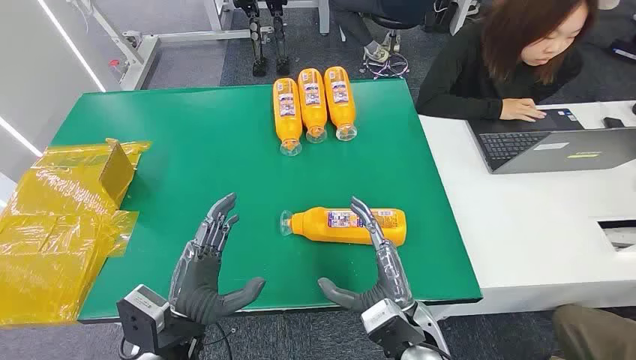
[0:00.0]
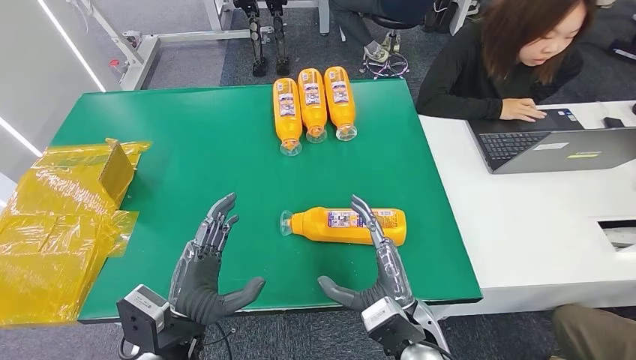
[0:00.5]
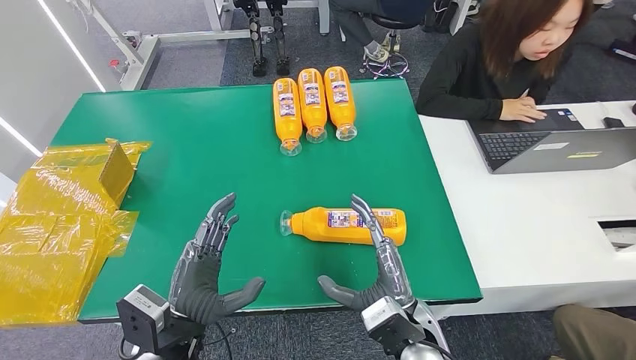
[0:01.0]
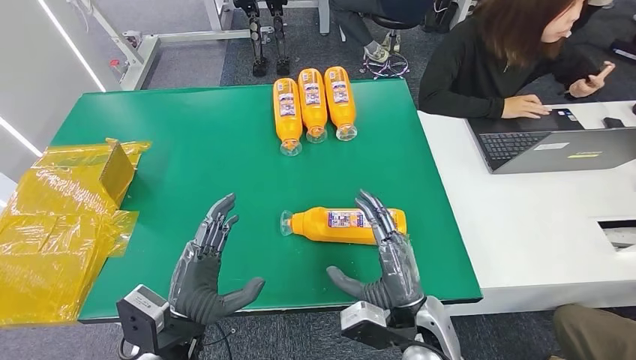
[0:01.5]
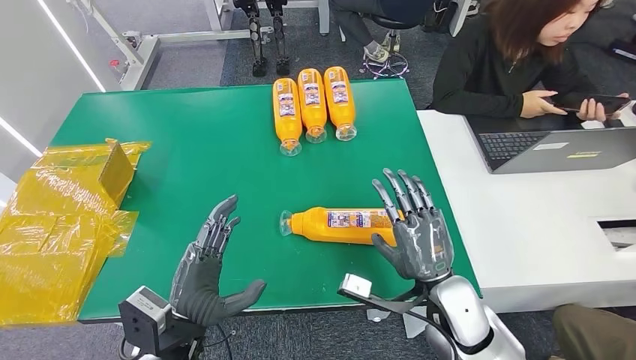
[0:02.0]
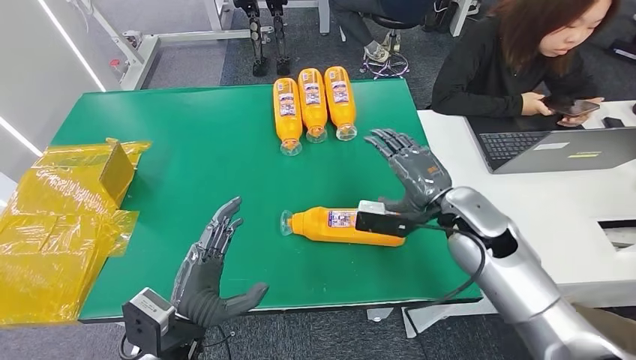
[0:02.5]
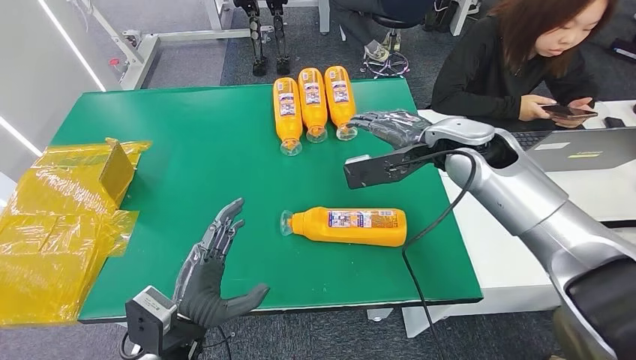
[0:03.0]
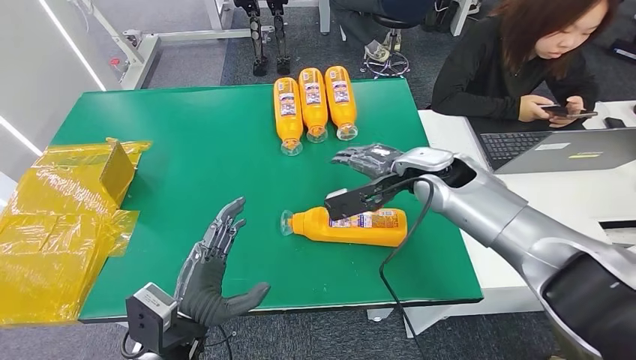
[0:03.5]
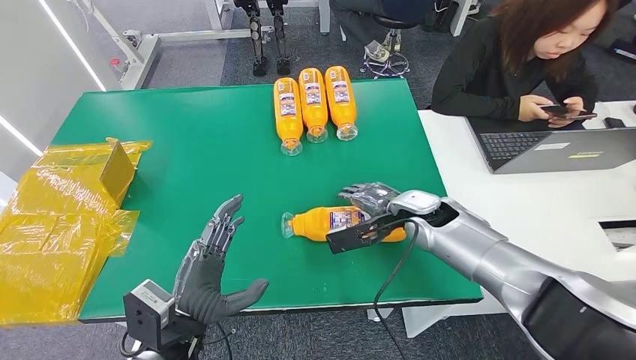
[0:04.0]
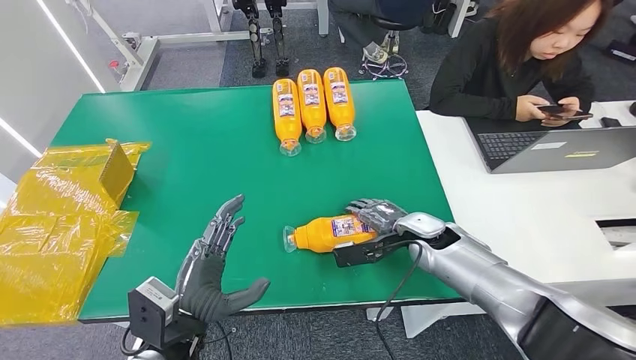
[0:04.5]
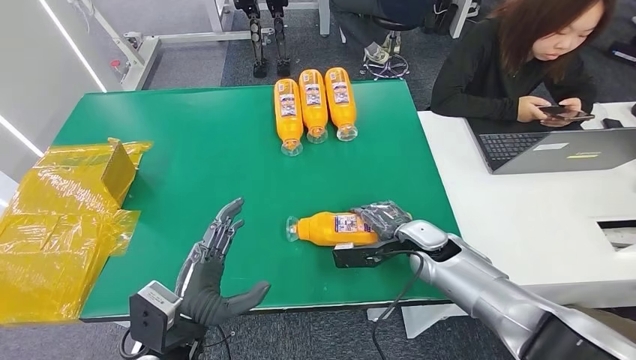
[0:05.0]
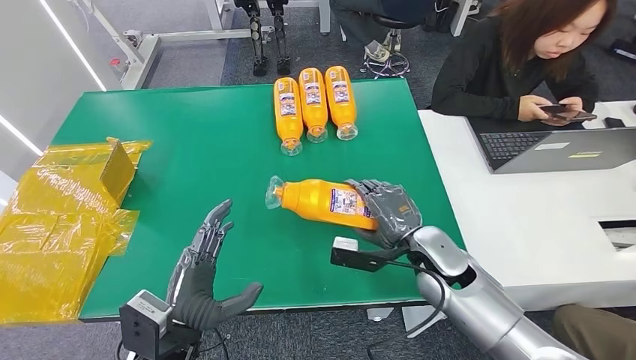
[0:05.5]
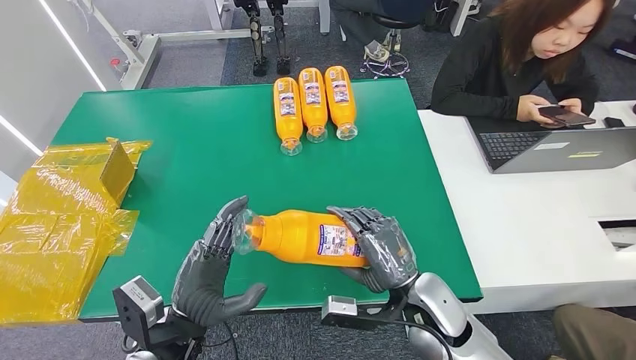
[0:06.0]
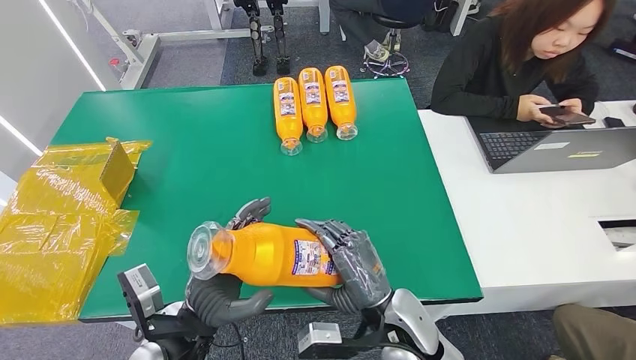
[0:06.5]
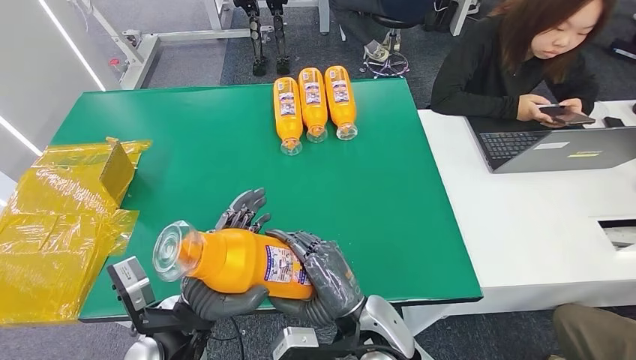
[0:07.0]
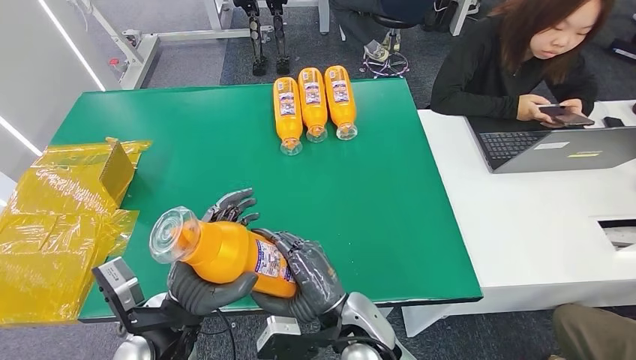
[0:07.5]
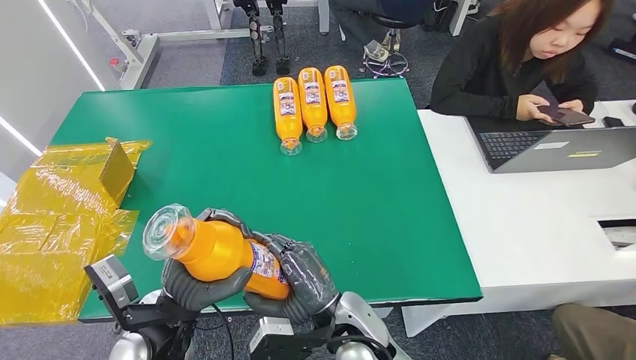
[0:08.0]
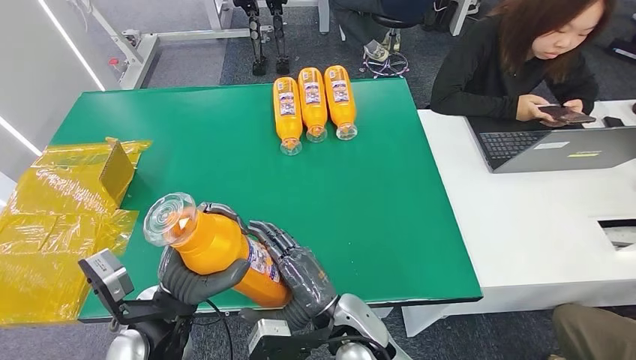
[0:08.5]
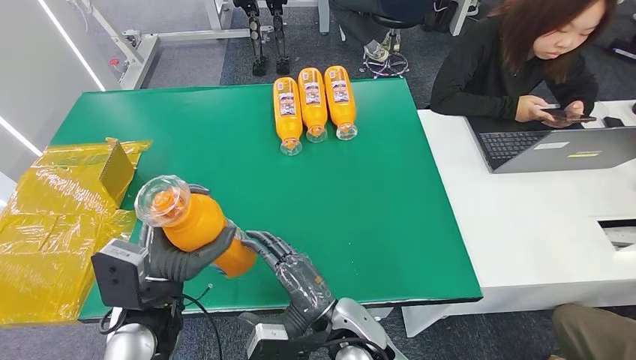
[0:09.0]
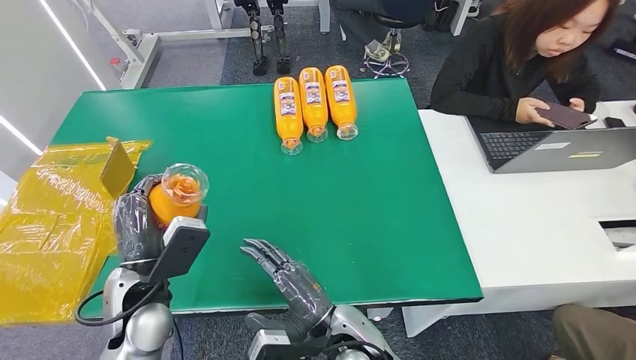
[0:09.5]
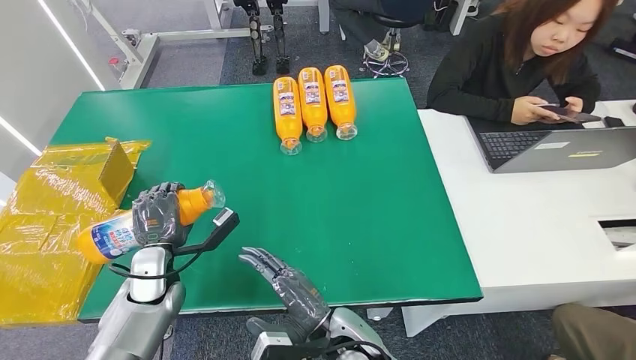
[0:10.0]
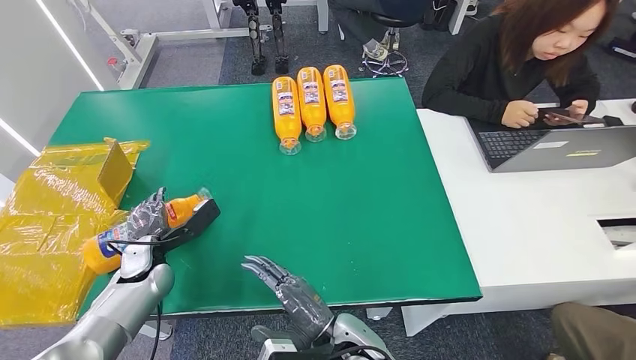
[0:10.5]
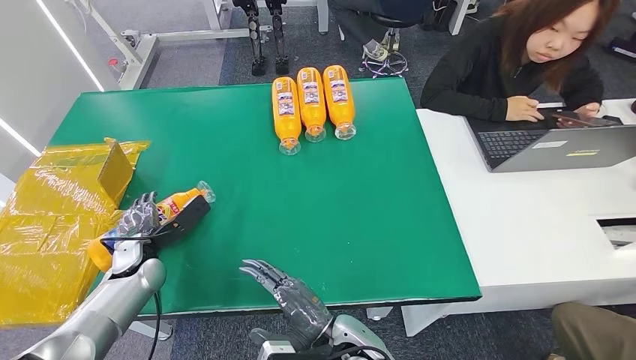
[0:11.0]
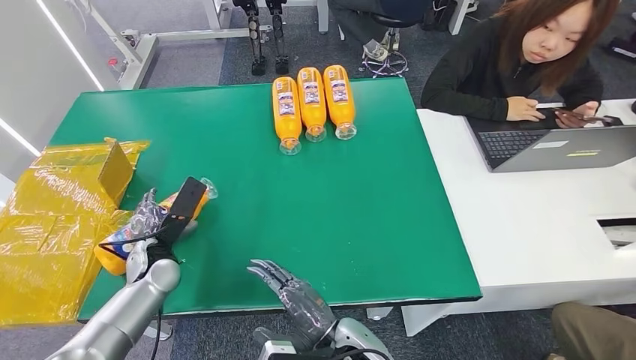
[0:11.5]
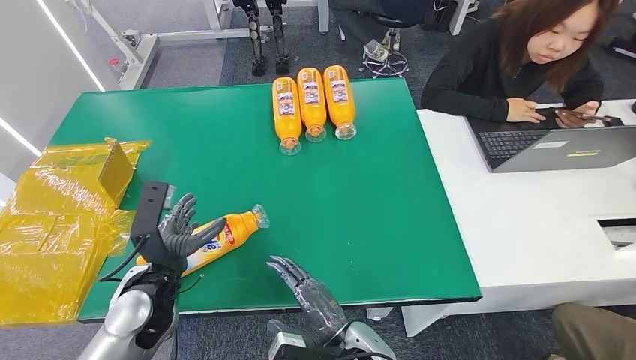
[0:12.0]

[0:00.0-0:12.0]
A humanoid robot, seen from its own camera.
Step, 0:00.0 to 0:05.5: Pick up the bottle from the table.
Step, 0:06.0 to 0:12.0: Turn the bottle to the front side.
0:02.0 to 0:04.0: The right hand goes some 15 cm forward.
0:04.0 to 0:06.0: The right hand shifts approximately 15 cm backward.
0:06.0 to 0:08.0: The right hand travels to the left by some 15 cm.
0:08.0 to 0:10.0: The left hand is displaced to the left, forward and downward by approximately 15 cm.
0:10.0 to 0:12.0: The left hand moves upward, roughly 5 cm, and travels to the left and back again, about 10 cm each way.
